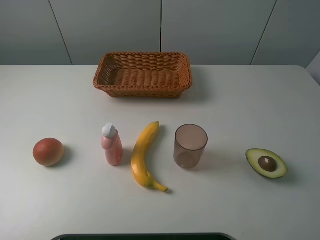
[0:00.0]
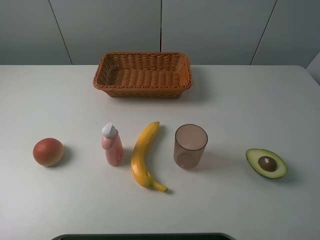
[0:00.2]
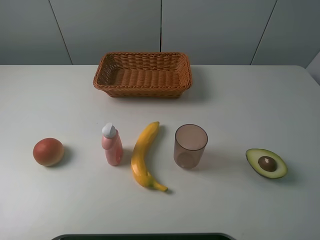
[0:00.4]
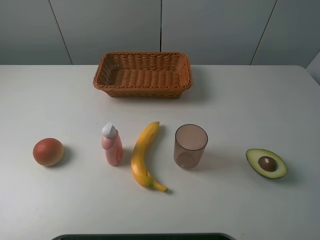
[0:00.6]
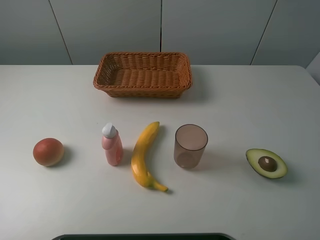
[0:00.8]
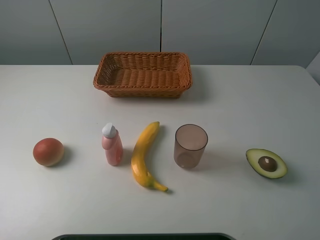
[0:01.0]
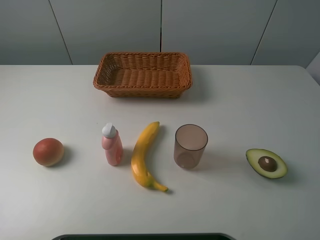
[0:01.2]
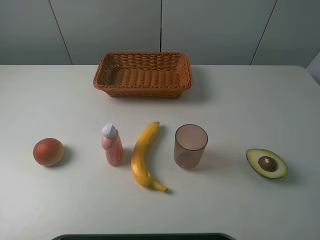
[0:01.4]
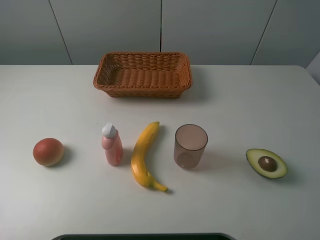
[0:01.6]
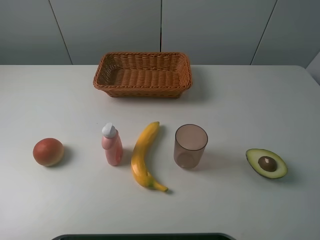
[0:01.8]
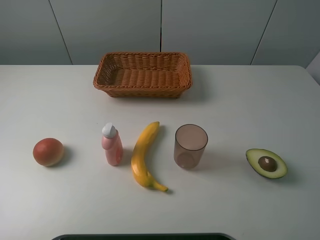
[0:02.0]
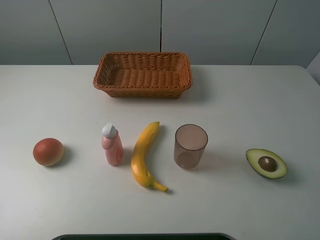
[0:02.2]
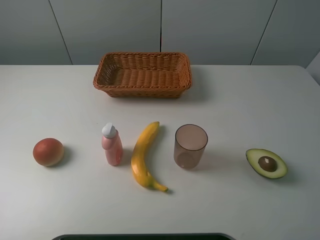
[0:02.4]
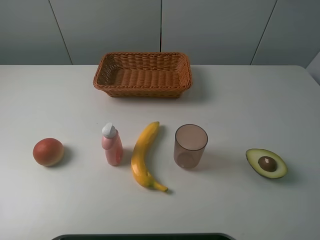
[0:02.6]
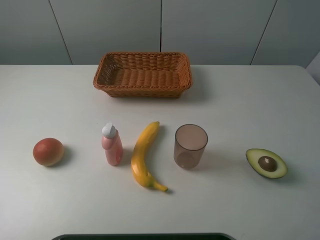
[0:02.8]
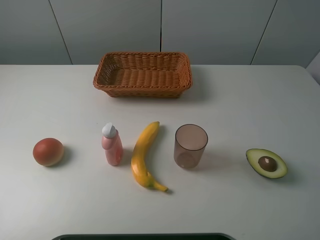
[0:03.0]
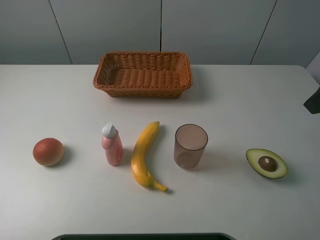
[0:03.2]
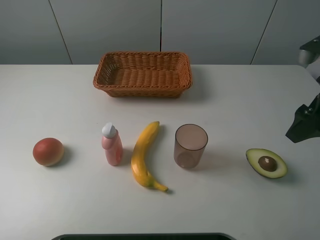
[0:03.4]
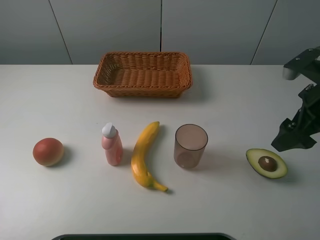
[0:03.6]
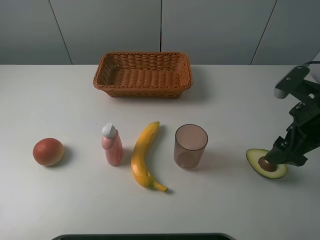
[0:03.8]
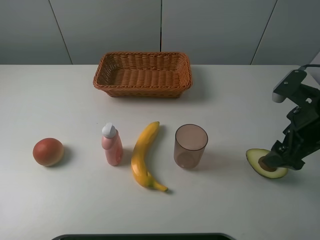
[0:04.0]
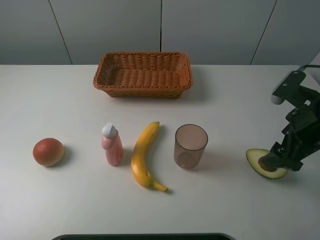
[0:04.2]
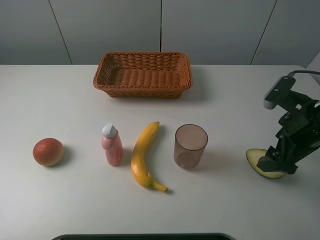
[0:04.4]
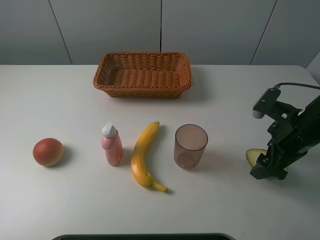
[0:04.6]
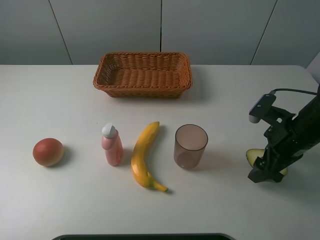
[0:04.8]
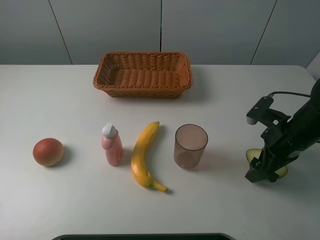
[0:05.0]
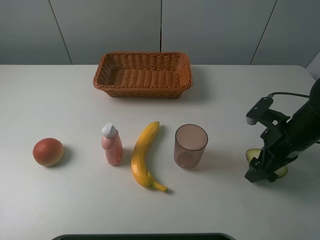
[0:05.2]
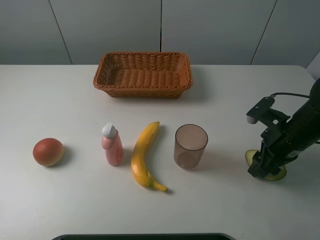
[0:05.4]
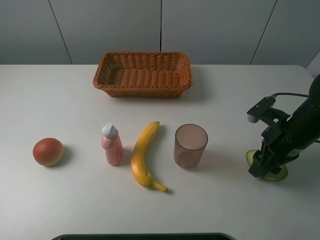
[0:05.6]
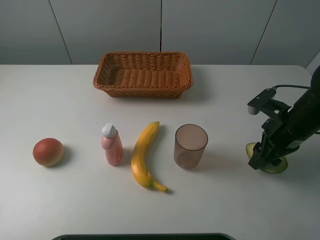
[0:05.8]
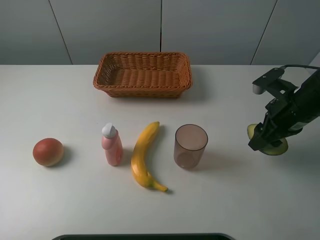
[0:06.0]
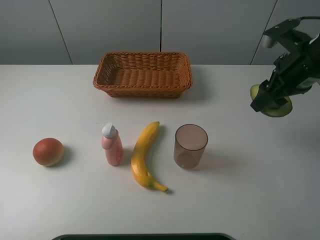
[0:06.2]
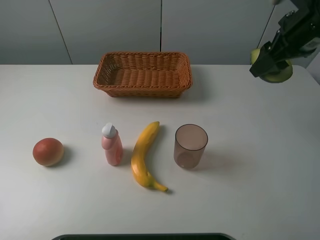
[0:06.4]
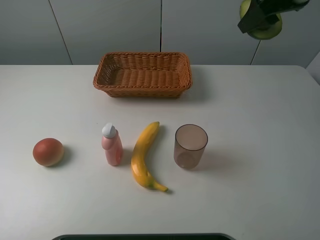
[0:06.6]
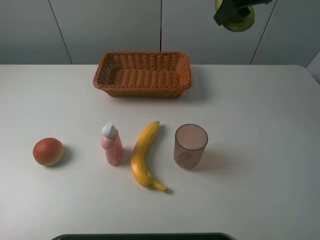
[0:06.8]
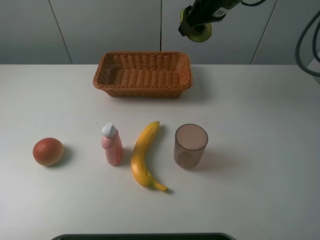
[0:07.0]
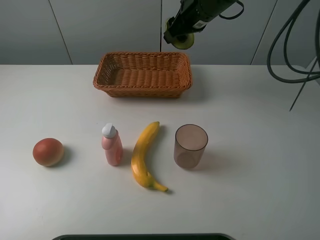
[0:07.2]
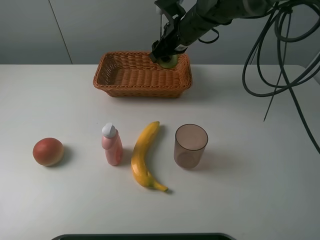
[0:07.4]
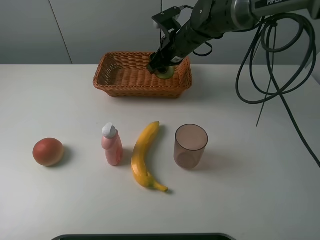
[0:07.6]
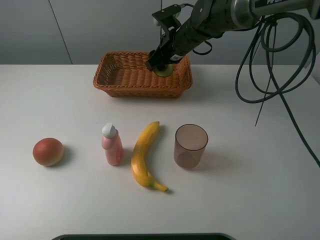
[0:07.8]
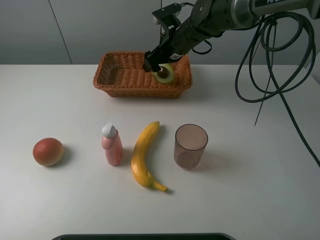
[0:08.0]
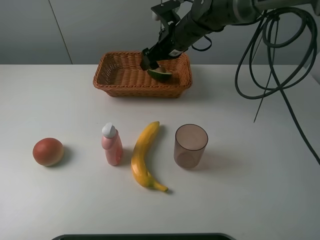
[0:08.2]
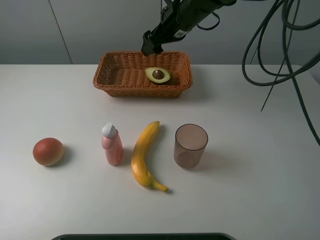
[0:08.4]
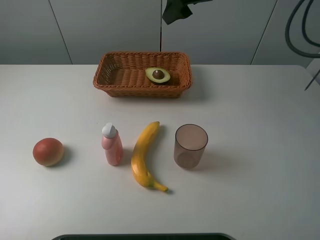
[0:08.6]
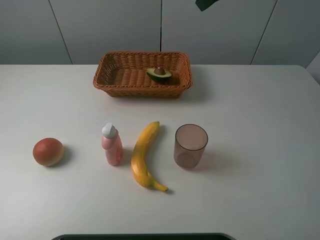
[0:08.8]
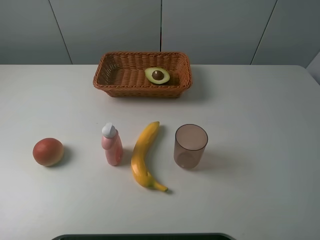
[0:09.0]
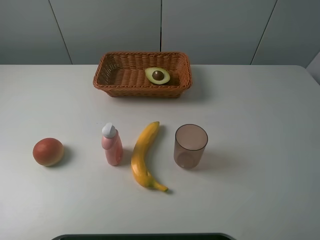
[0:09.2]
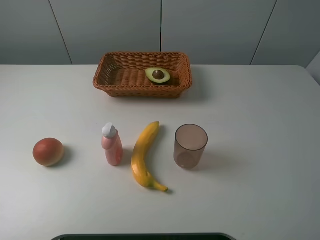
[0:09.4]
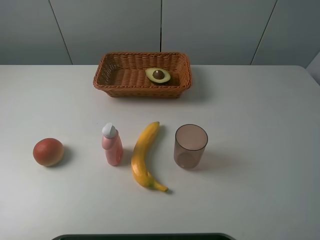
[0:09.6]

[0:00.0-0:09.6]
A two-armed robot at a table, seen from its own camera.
Task of the whole recording: randomly pick up an item from the table and put it in the basket.
Step, 0:00.0 to 0:05.6: Grasp the avocado with the right gripper.
Step, 0:05.8 to 0:08.4: Place the avocado into the basket with the right gripper.
0:00.0 to 0:01.6: The two grippers keep their place.
0:03.2 to 0:04.8: The right gripper is displaced downward by some 20 cm.
0:04.8 to 0:06.4: The right gripper heads upward and forward, covering some 20 cm, and closes.
0:06.4 to 0:08.0: The right gripper is displaced to the left, forward and downward by roughly 25 cm, and opens.
0:08.0 to 0:09.6: The right gripper travels backward, upward and to the right by approximately 50 cm.

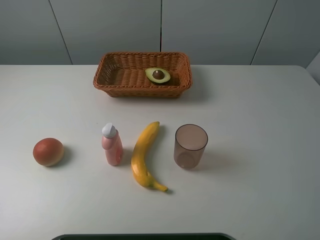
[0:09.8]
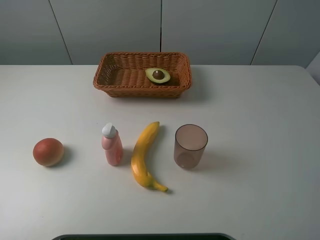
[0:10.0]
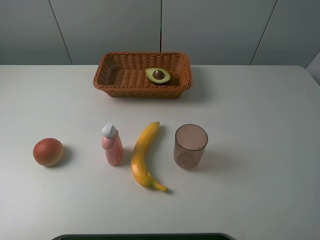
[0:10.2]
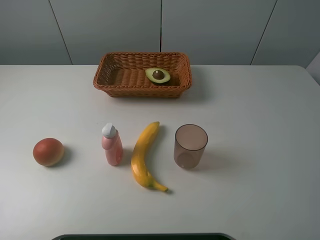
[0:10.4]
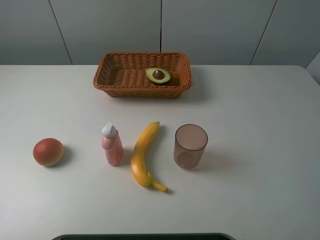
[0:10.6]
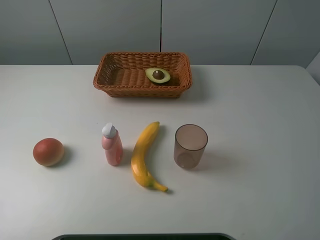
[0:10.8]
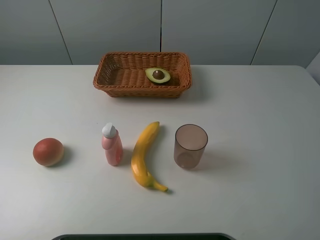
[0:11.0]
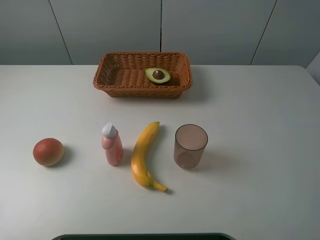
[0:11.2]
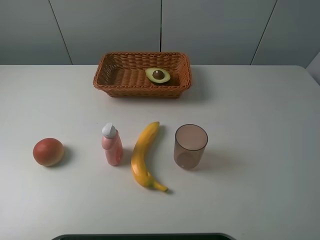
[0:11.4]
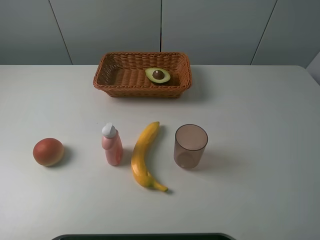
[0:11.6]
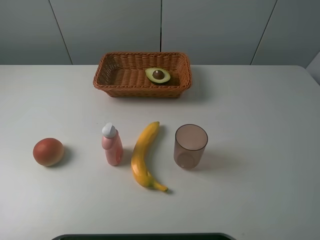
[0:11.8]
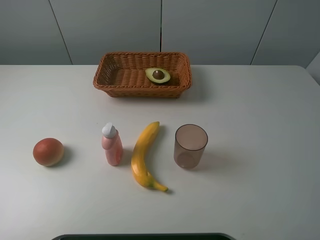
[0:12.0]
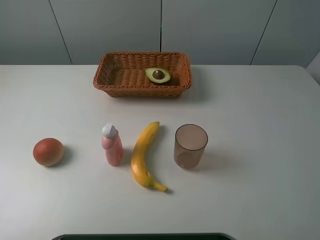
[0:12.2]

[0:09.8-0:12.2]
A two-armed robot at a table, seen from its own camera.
Task of the whole recording: randomly pick up an item from the table and put it in the basket.
0:11.0 to 0:12.2: Both grippers stay put.

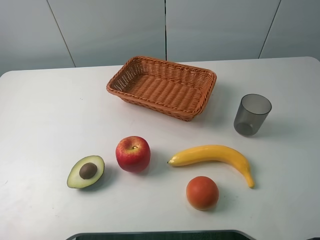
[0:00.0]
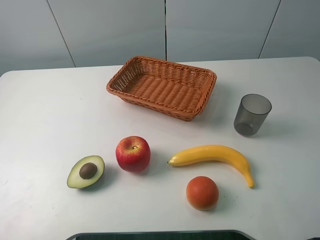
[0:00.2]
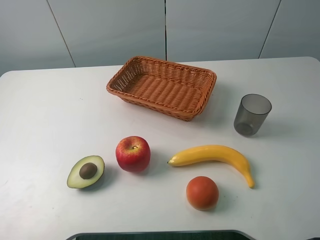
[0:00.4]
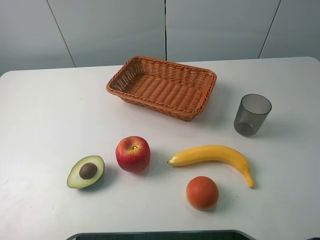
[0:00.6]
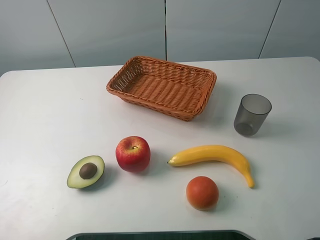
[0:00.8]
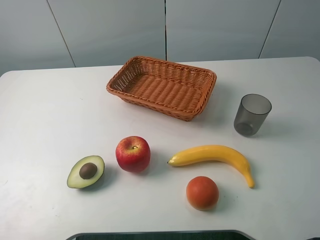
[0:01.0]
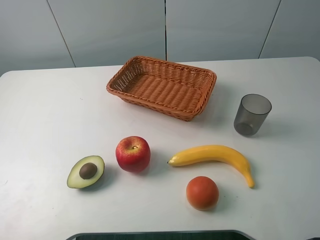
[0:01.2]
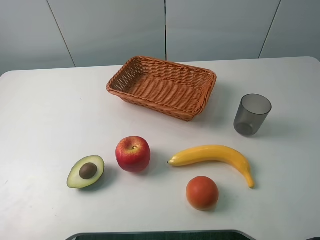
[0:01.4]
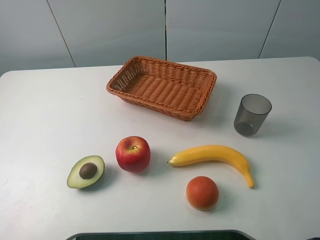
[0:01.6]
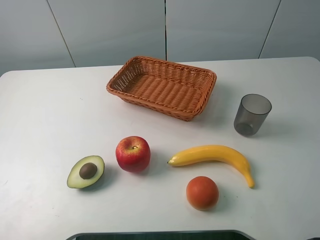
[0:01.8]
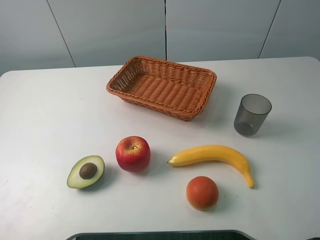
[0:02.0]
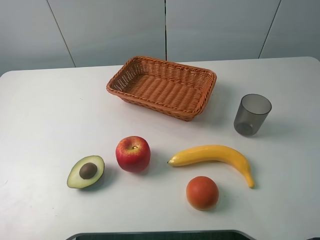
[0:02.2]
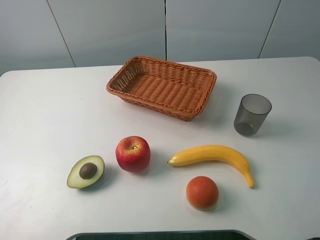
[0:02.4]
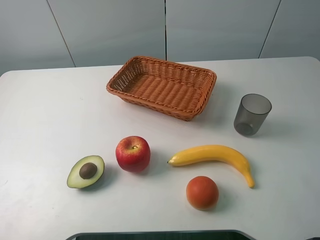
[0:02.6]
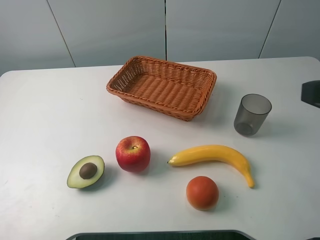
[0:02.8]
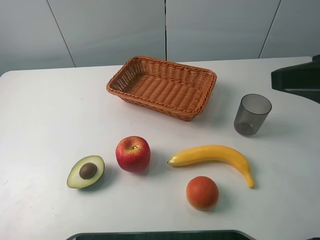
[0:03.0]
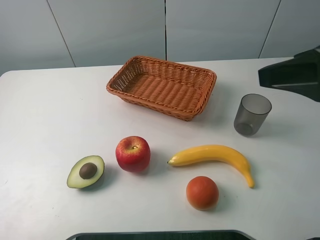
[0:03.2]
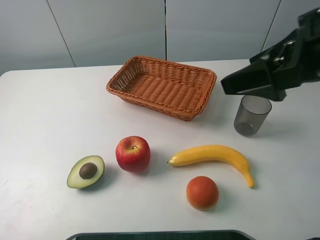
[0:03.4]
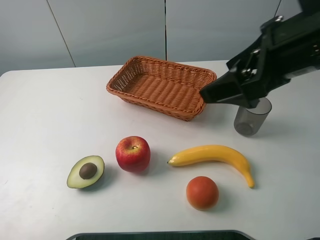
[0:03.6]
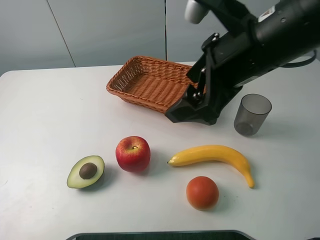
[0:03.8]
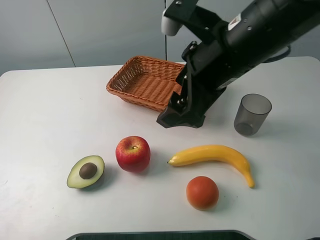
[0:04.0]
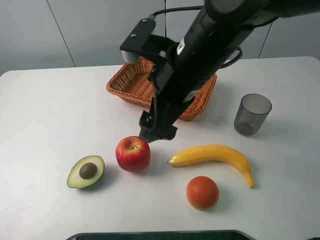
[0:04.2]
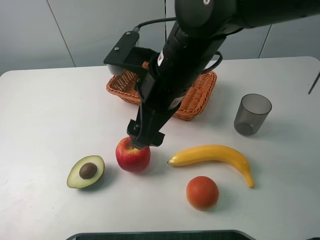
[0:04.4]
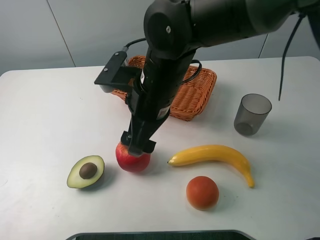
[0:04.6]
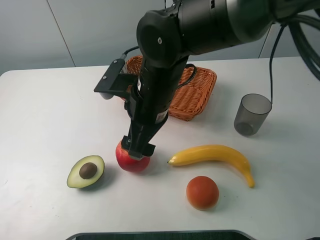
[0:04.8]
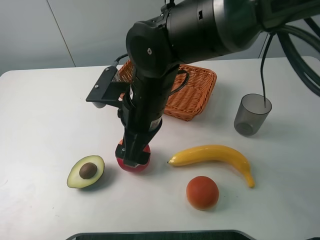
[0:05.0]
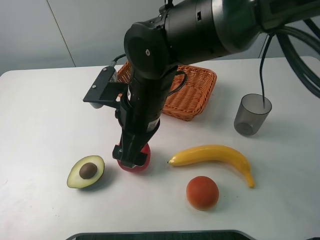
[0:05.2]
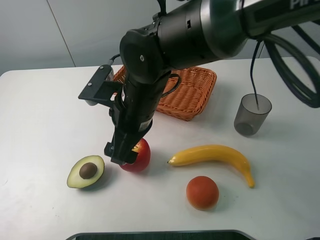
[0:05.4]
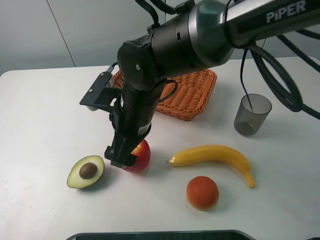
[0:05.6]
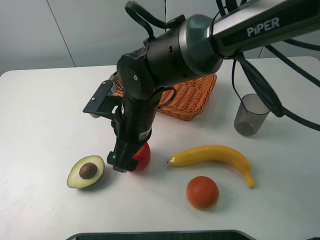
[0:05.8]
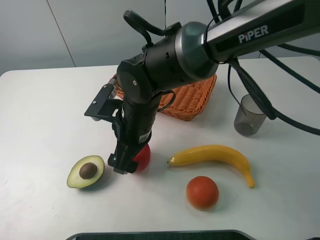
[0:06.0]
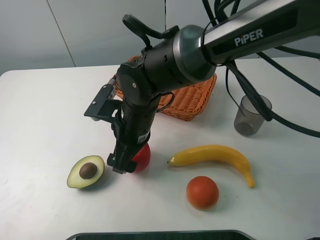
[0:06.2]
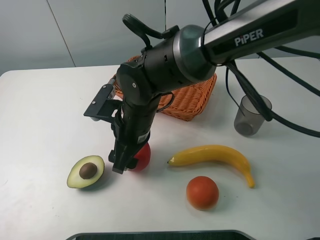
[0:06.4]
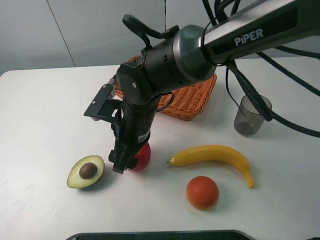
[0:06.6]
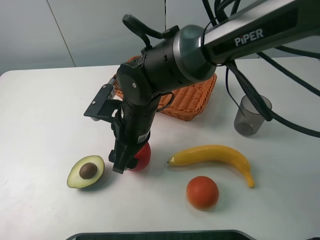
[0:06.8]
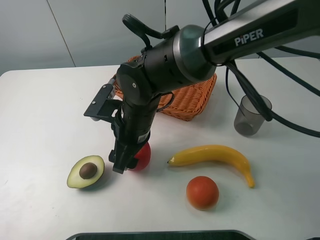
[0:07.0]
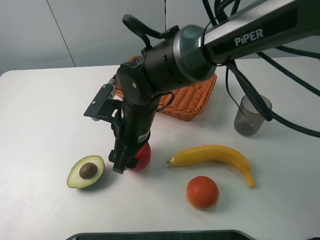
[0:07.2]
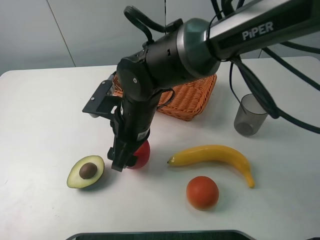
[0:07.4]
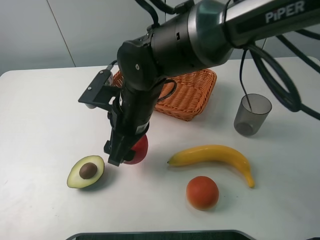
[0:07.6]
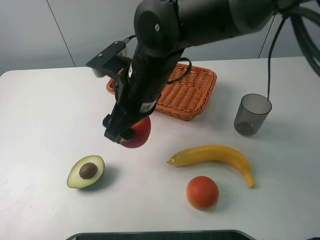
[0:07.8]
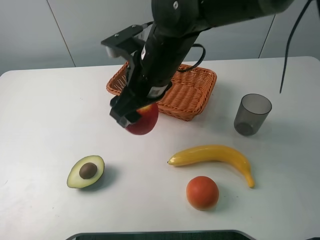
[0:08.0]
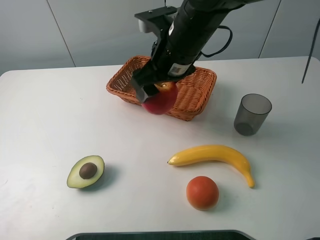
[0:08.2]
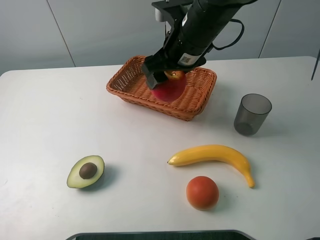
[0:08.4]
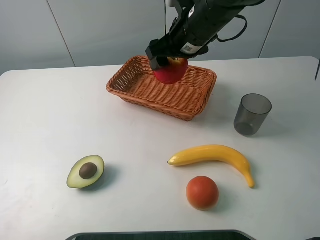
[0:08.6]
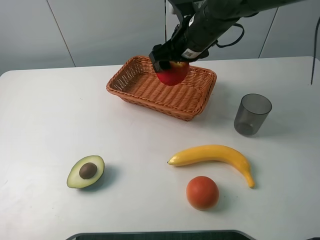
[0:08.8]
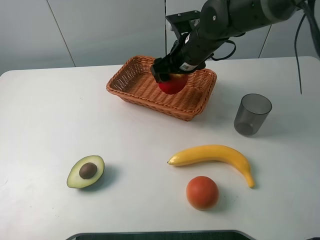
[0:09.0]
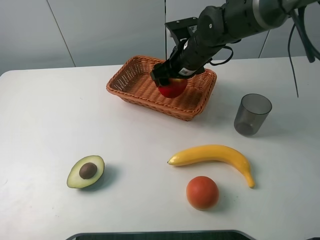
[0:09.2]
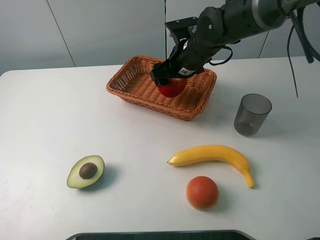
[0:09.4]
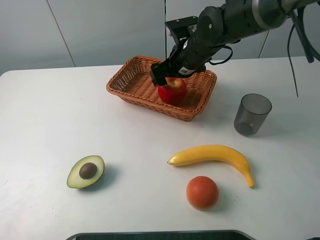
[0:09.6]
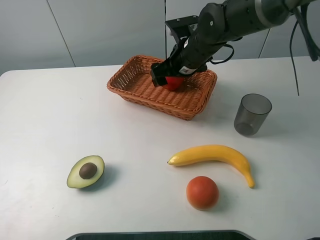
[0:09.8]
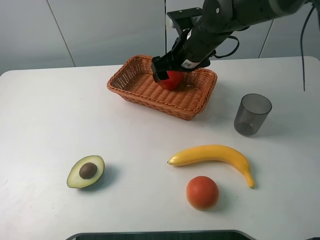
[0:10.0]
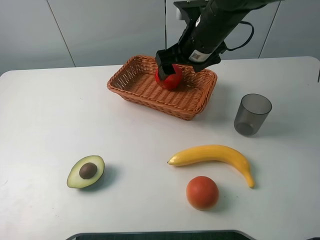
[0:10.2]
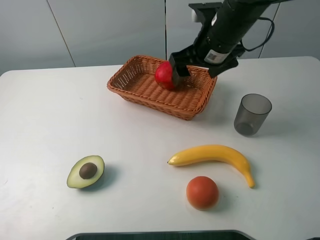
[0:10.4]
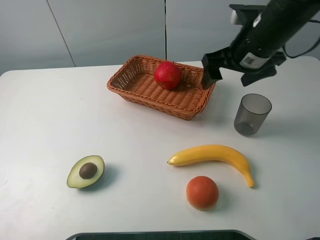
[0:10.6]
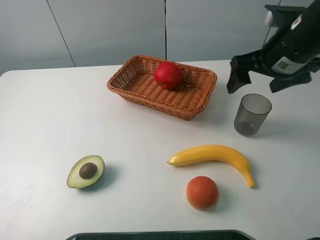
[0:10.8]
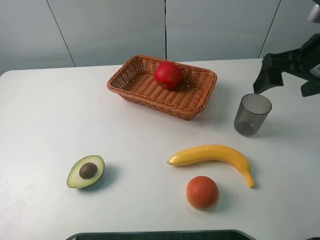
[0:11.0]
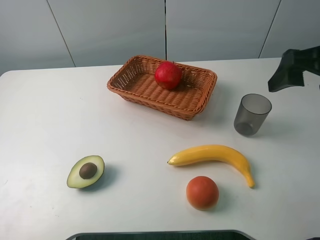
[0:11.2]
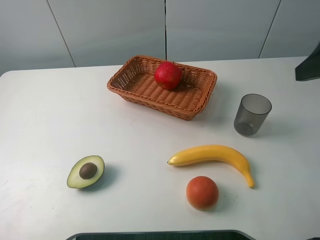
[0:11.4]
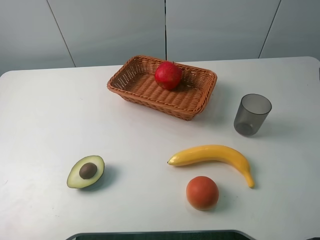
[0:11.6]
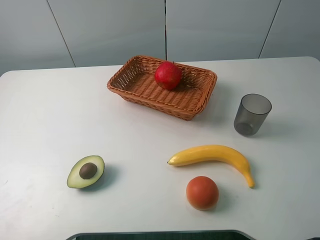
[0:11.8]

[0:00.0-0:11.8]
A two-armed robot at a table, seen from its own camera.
Task of the whole recording: randomly pick up an item from the table and put it in the basket.
Step, 0:00.0 to 0:06.8: Grasp the apple with the right gripper.
Step, 0:07.0 to 0:10.0: Place the apple into the basket with the right gripper.
0:00.0 to 0:01.4: Neither gripper changes place.
0:01.4 to 0:03.0: The right gripper goes some 15 cm forward.
0:03.0 to 0:04.4: The right gripper moves to the left, roughly 25 cm.
0:04.4 to 0:06.0: The right gripper travels downward and to the left by about 10 cm.
0:06.0 to 0:07.4: The right gripper closes its fingers.
0:07.4 to 0:08.8: The right gripper heads forward, to the right and upward, covering about 20 cm.
0:08.8 to 0:10.4: The right gripper ends up some 5 cm from where it was, and opens up.
0:10.4 to 0:11.8: The right gripper heads backward, to the right and upward, covering approximately 30 cm.
